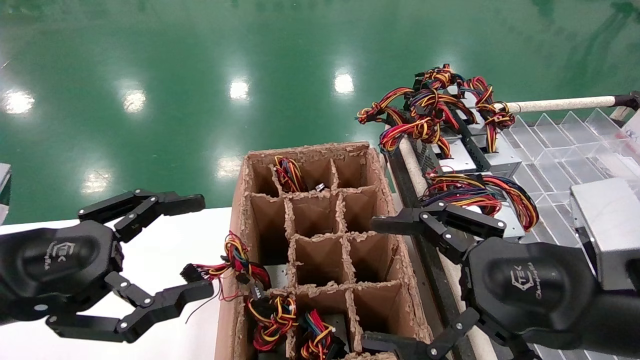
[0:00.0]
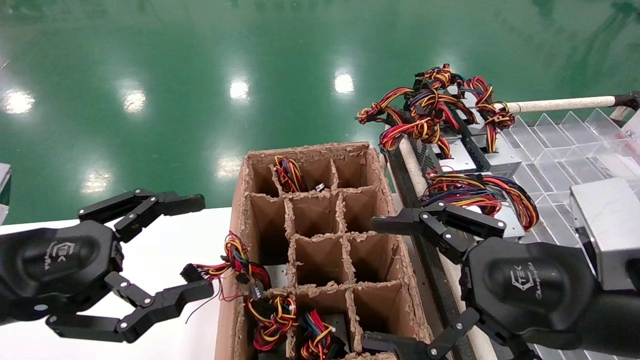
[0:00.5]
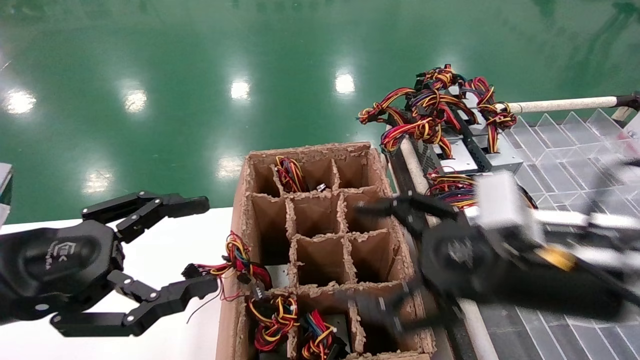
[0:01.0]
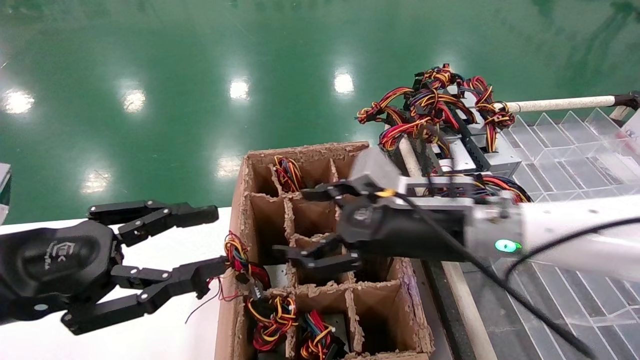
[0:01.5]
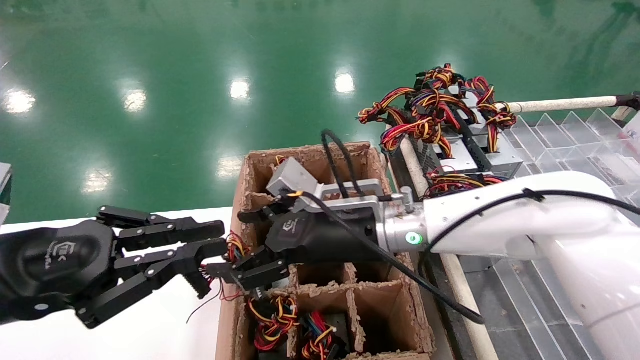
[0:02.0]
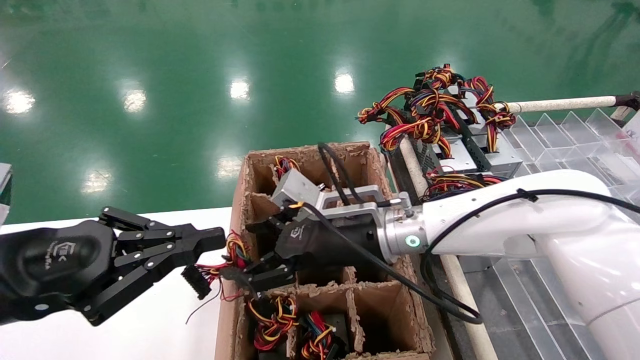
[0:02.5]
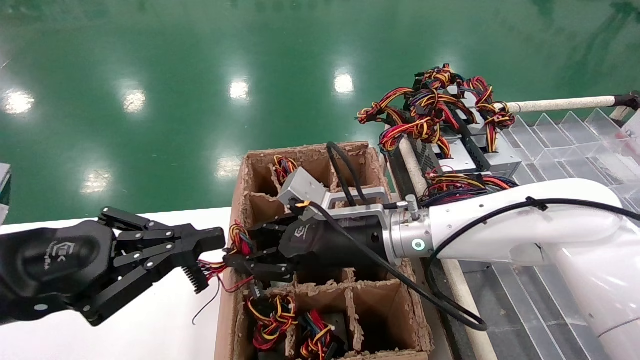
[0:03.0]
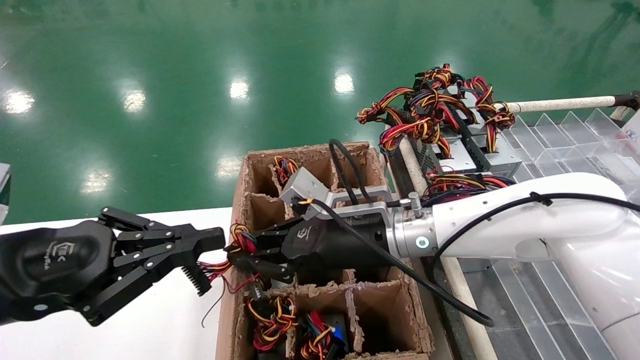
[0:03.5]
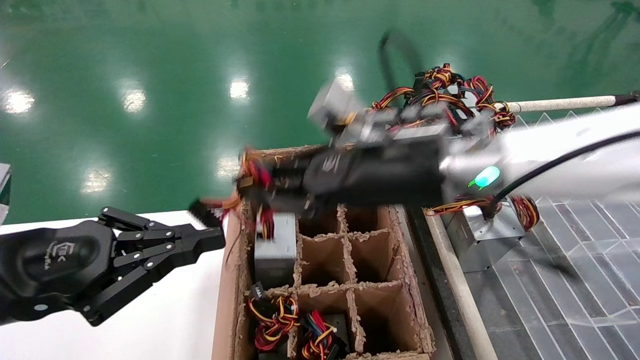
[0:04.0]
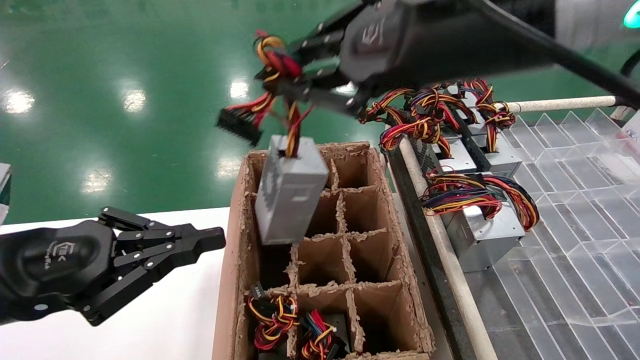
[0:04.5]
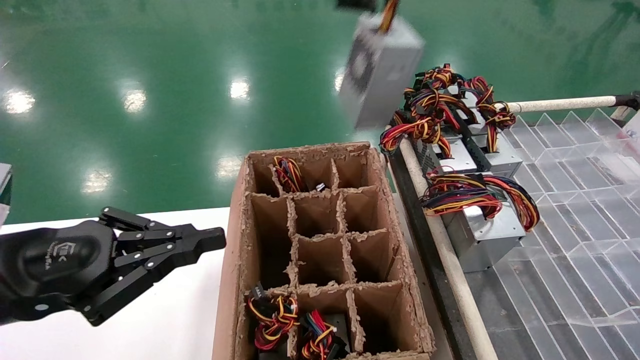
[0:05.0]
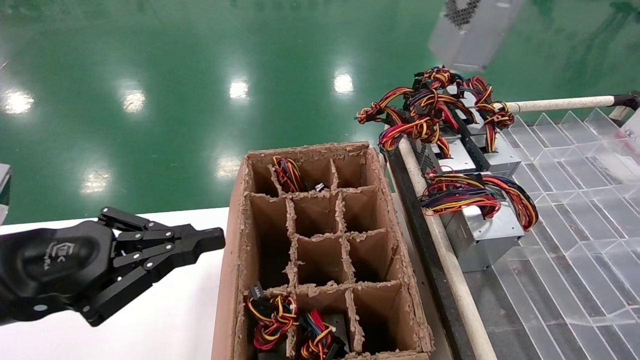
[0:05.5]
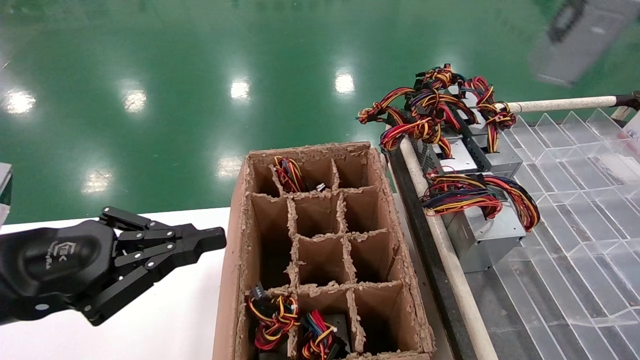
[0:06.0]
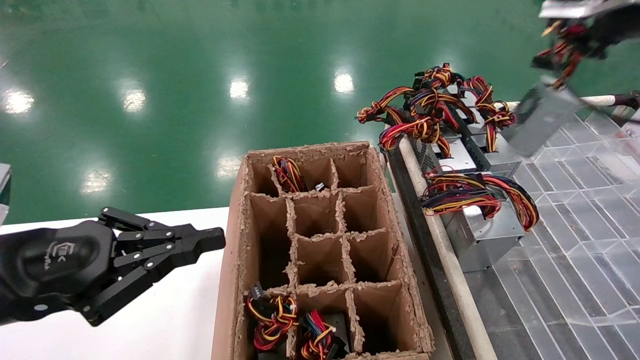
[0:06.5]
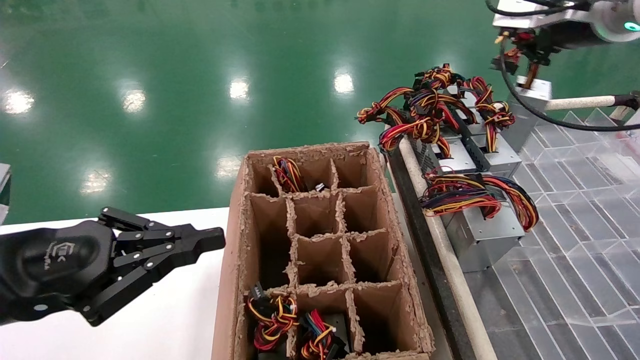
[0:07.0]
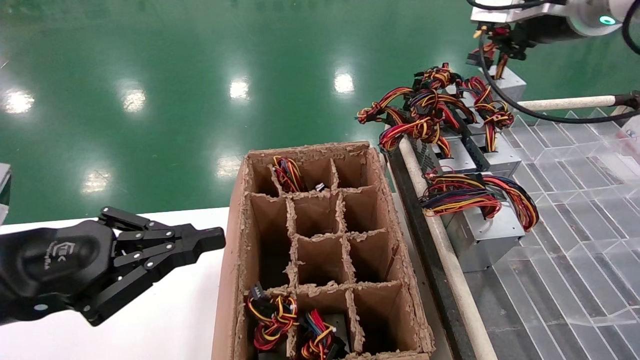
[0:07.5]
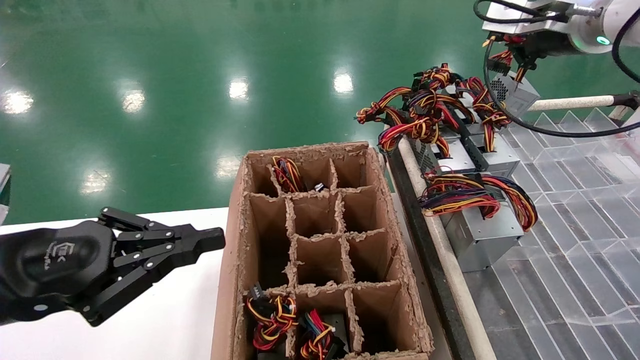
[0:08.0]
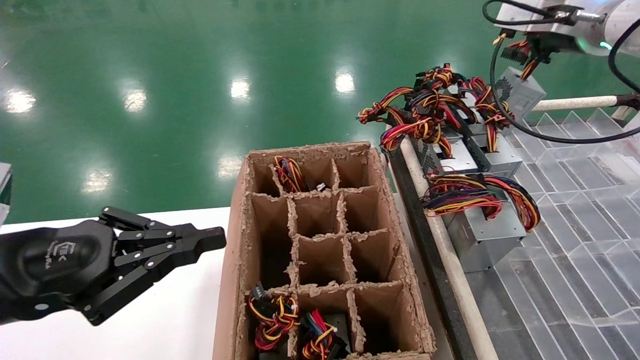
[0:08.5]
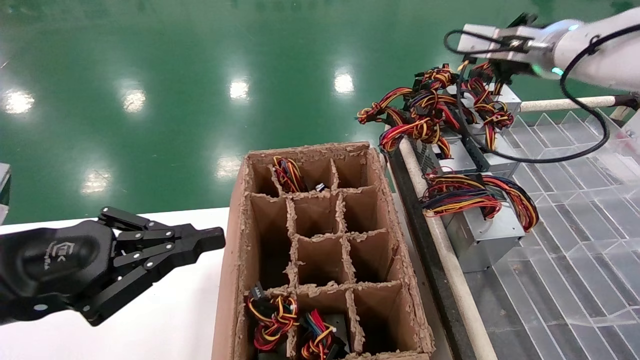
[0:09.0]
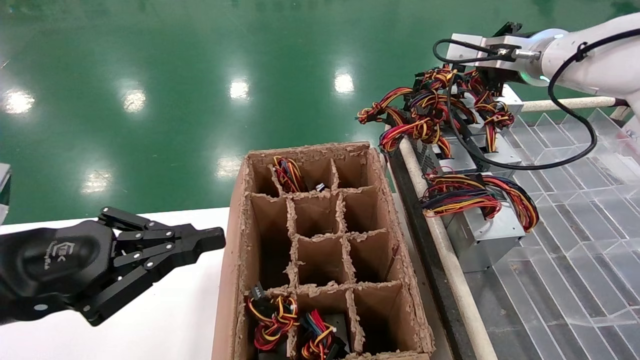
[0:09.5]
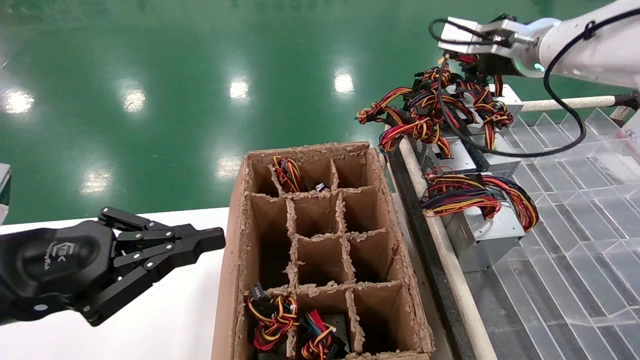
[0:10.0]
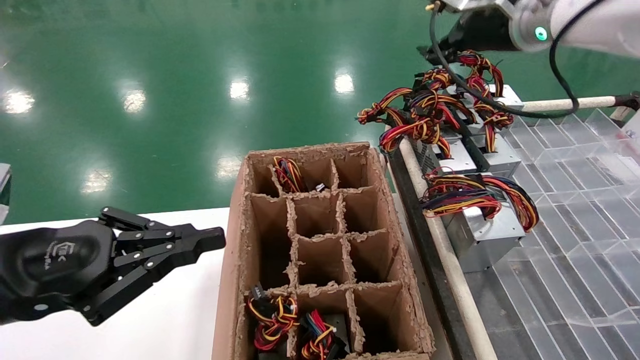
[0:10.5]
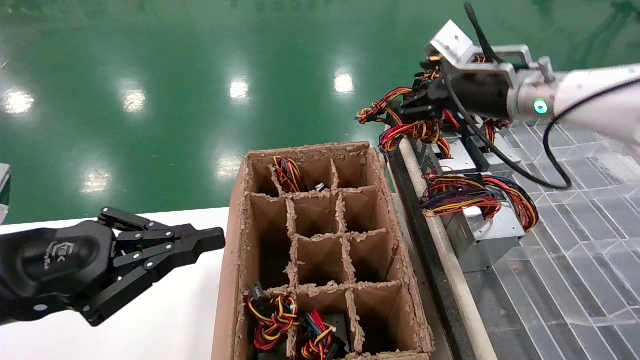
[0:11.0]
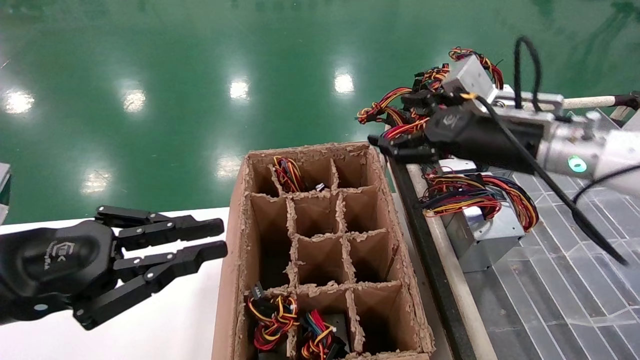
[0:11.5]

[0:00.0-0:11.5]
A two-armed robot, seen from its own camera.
Step, 0:01.5 to 0:03.5: Grab the main unit power supply from the containment box.
Step, 0:04.0 to 0:10.0: Place the main unit power supply in the designated area.
0:00.0 to 0:02.0: The right gripper heads to the left and forward, covering roughly 25 cm, while the left gripper closes up.
0:02.0 to 0:04.0: The right gripper travels upward by roughly 10 cm, and closes its fingers.
0:04.0 to 0:06.0: The right gripper shifts roughly 35 cm upward and to the right.
0:06.0 to 0:07.5: The right gripper goes about 20 cm forward and downward.
0:07.5 to 0:09.5: The right gripper goes about 5 cm downward.
0:09.5 to 0:11.5: The right gripper is displaced downward and backward by about 15 cm, and opens its fingers.

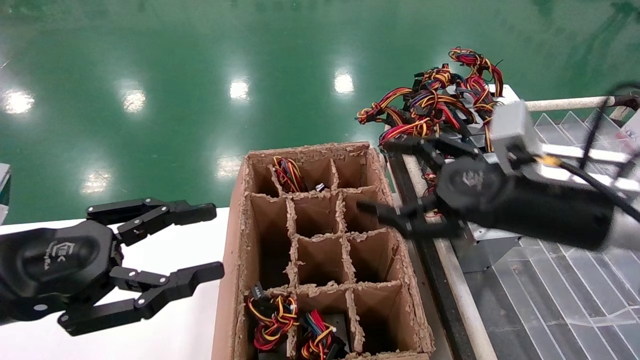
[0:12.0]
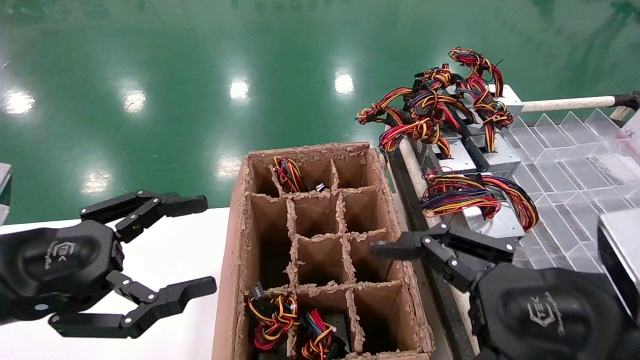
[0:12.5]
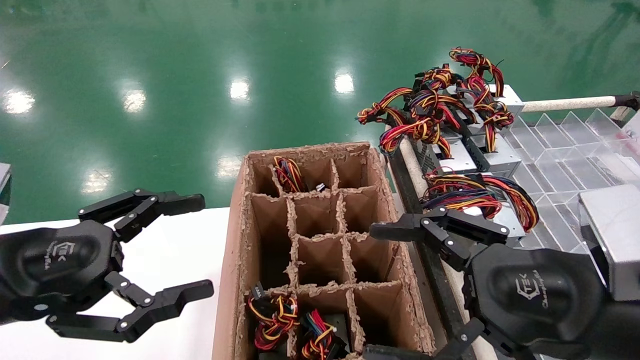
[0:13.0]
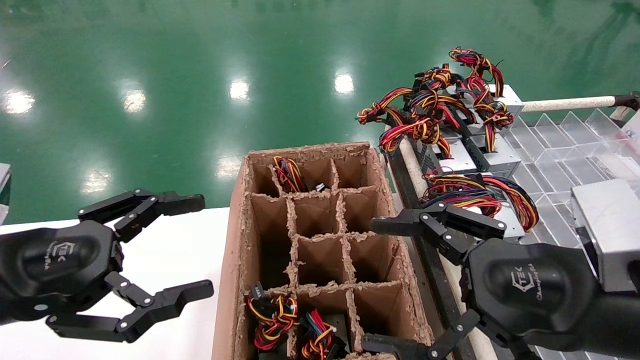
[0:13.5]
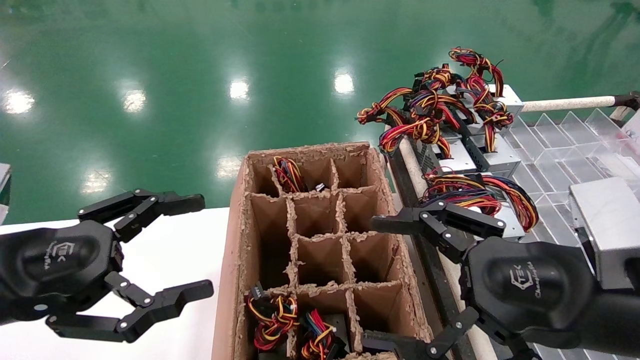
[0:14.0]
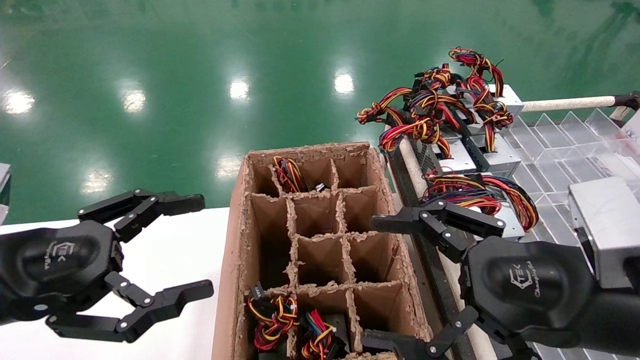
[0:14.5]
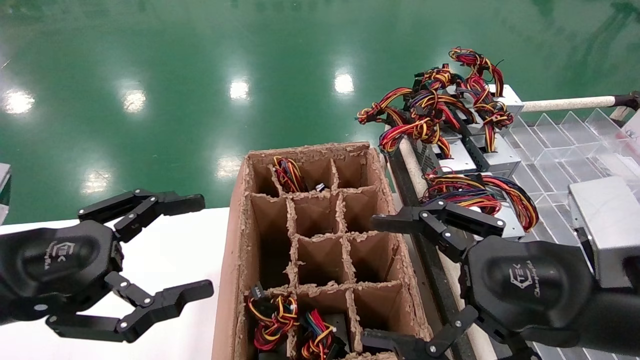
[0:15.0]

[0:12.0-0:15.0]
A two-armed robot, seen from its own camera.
0:12.0 to 0:13.5: The right gripper travels backward by about 10 cm; the left gripper opens.
0:13.5 to 0:15.0: Neither gripper changes place.
